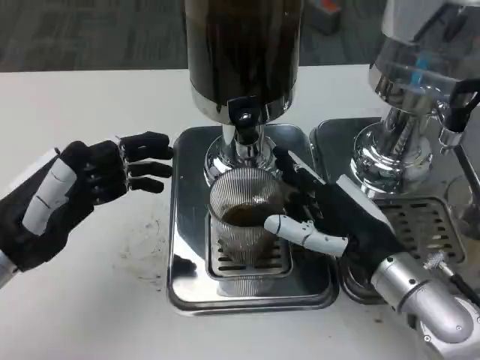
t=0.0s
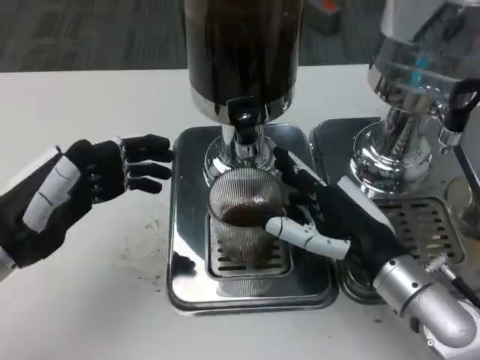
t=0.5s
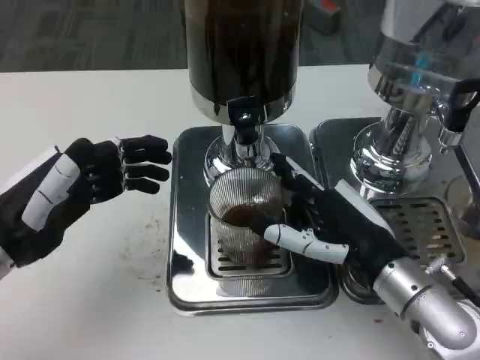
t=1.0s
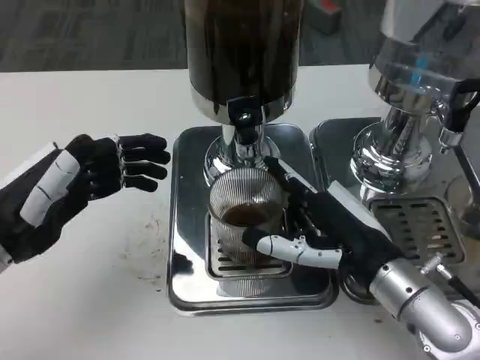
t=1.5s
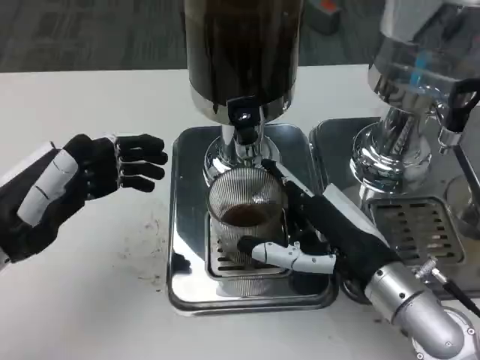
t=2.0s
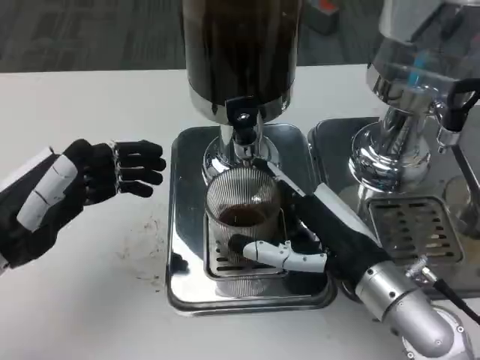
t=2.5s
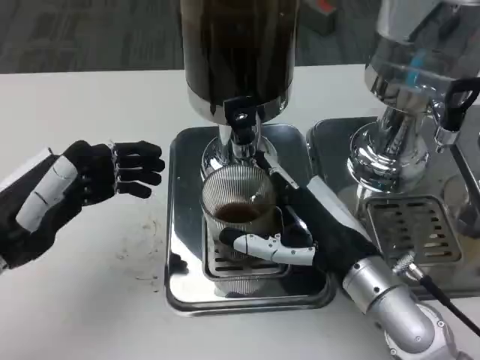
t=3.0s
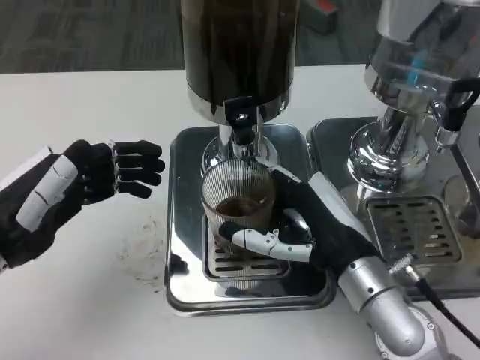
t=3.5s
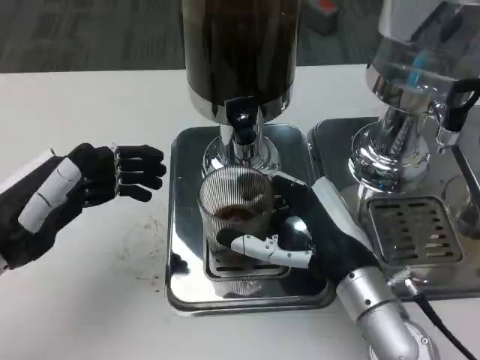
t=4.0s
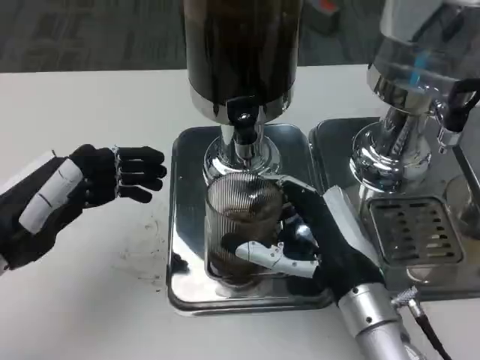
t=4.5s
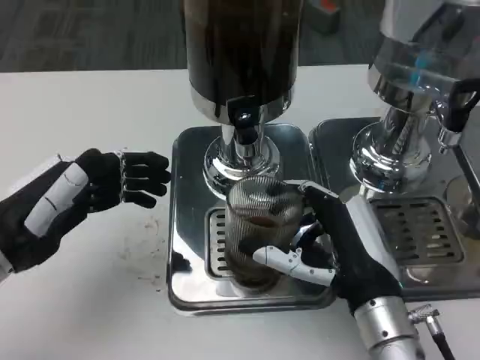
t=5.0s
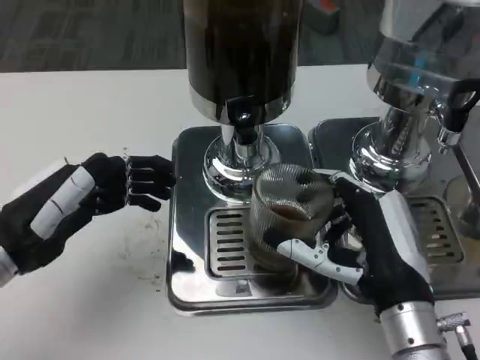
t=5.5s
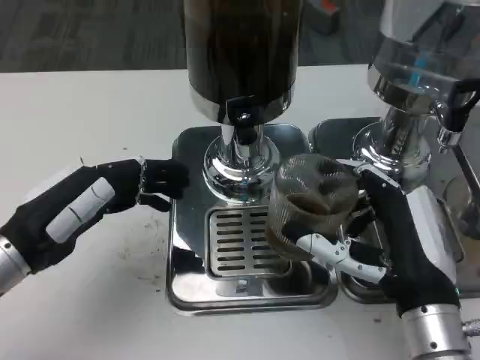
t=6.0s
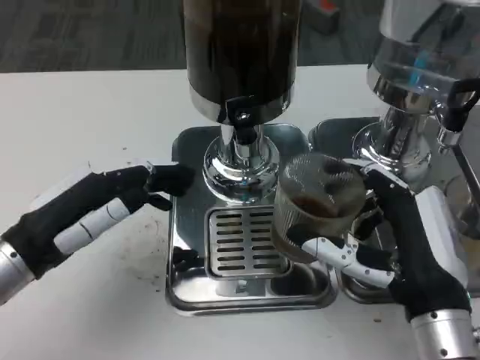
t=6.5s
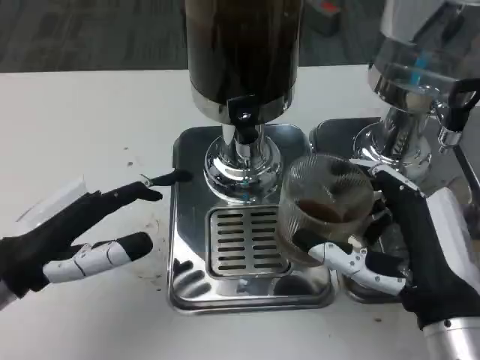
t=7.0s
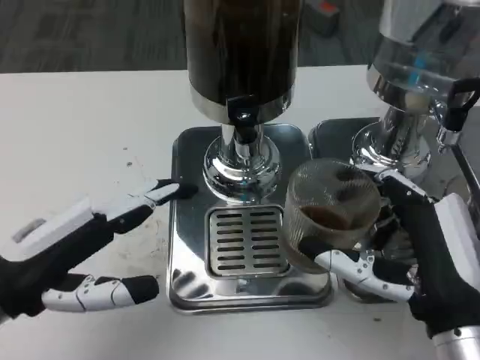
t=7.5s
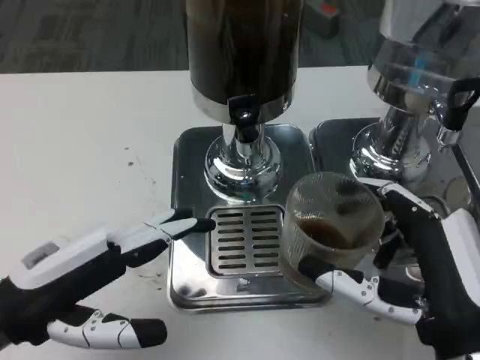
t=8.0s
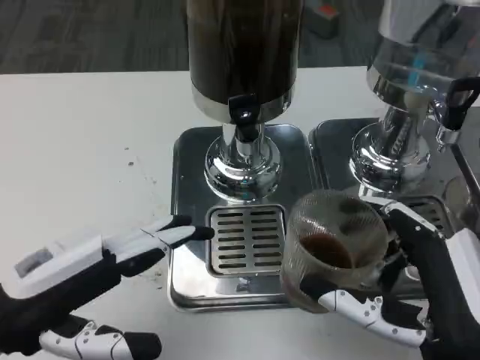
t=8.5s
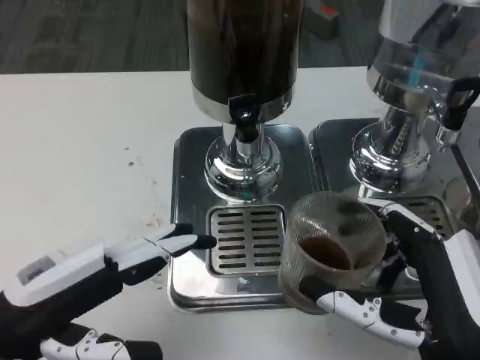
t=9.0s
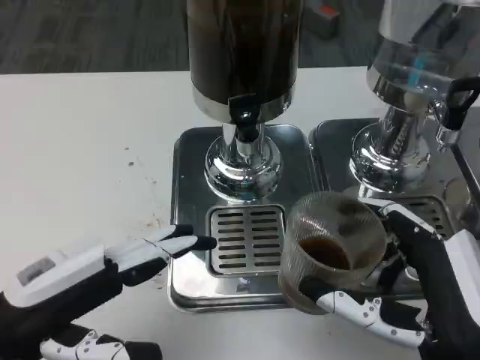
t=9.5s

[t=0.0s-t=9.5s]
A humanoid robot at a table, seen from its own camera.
Task of the whole recording: Grasp the cup under the faucet to collect the drink, then remove the cup.
t=0.0s to t=4.0s: The hands make only small movements.
t=5.5s to t=7.5s: The right hand moves some 5 cm.

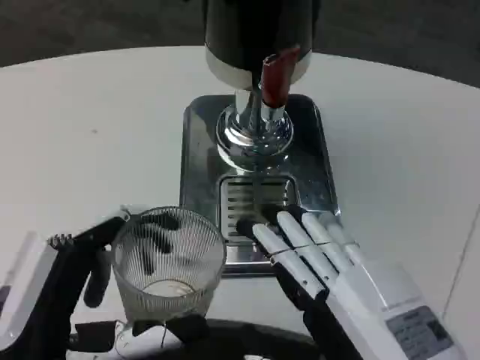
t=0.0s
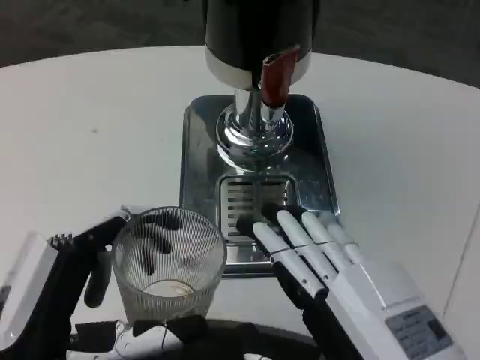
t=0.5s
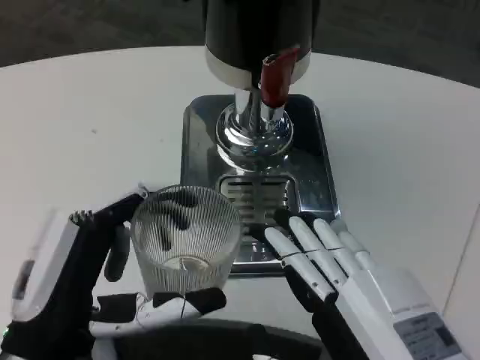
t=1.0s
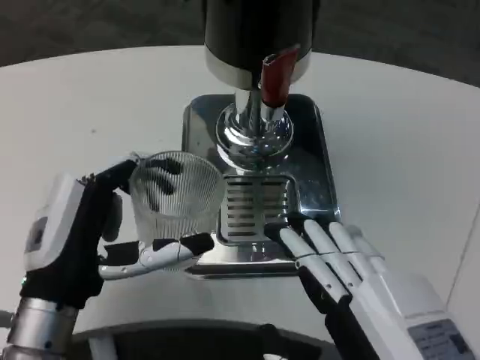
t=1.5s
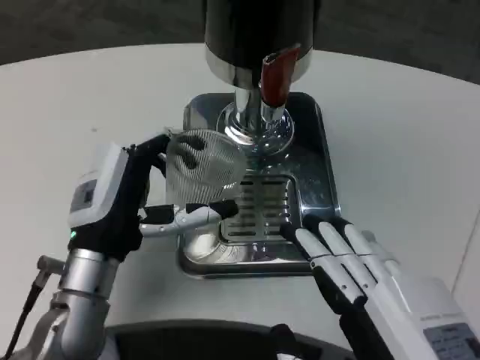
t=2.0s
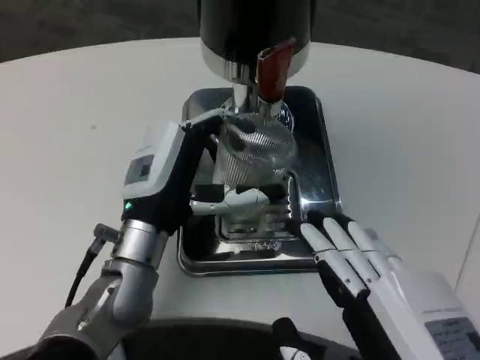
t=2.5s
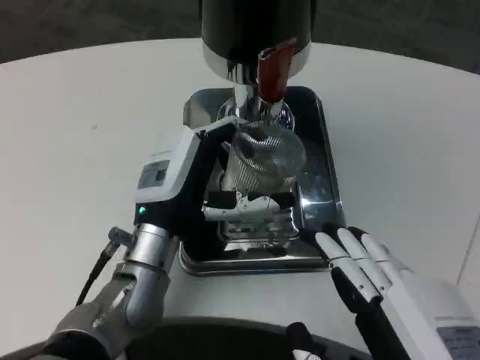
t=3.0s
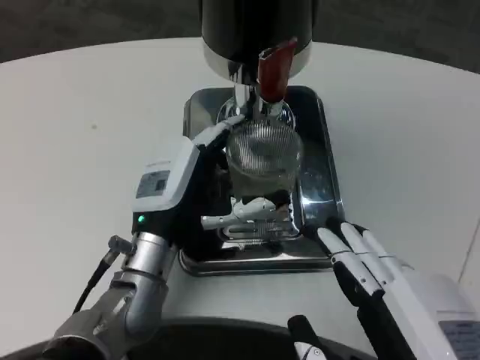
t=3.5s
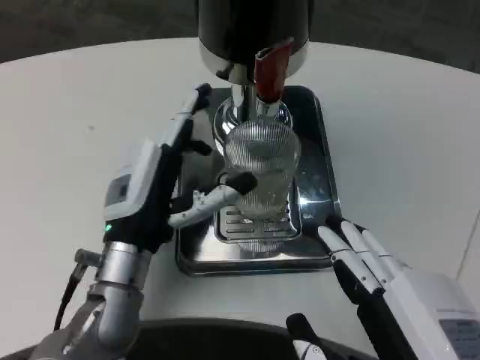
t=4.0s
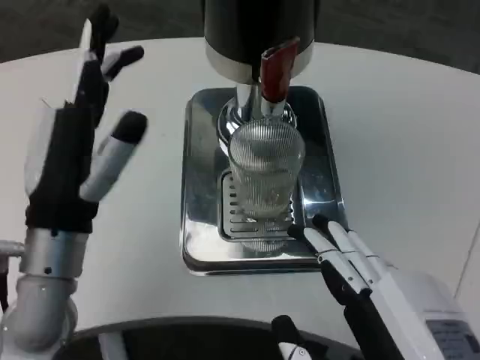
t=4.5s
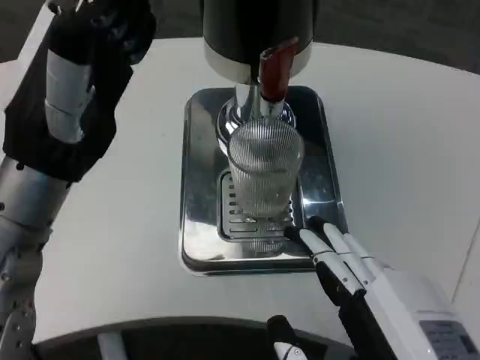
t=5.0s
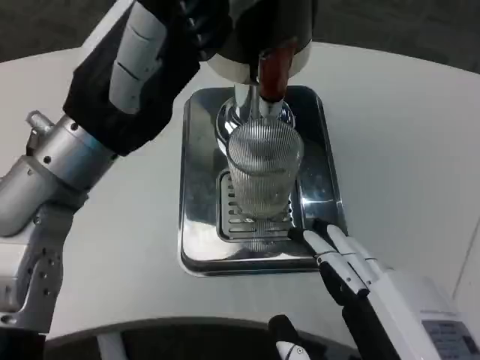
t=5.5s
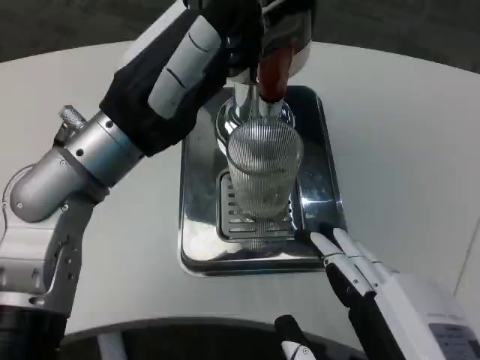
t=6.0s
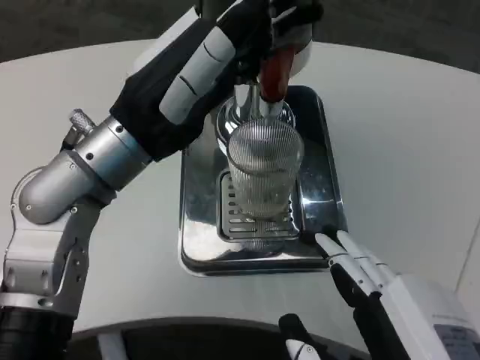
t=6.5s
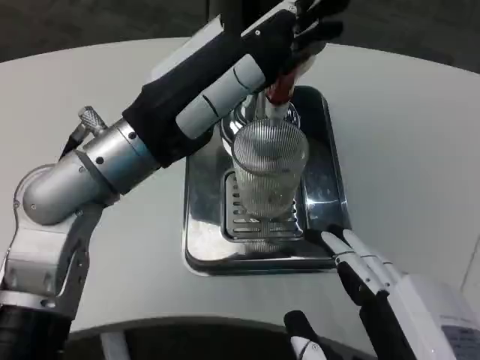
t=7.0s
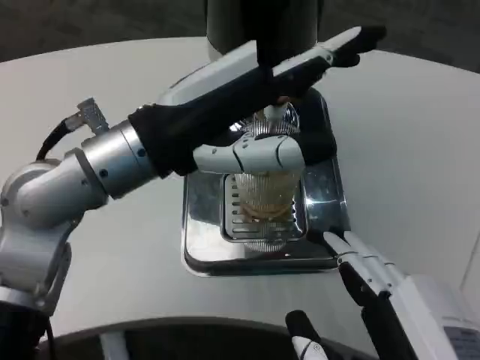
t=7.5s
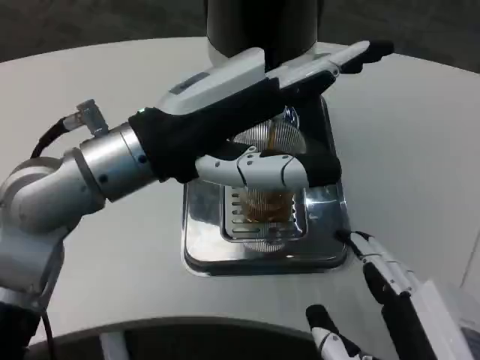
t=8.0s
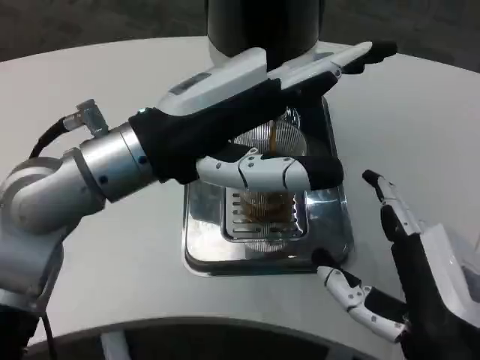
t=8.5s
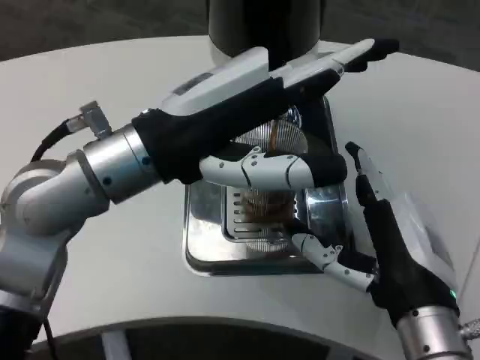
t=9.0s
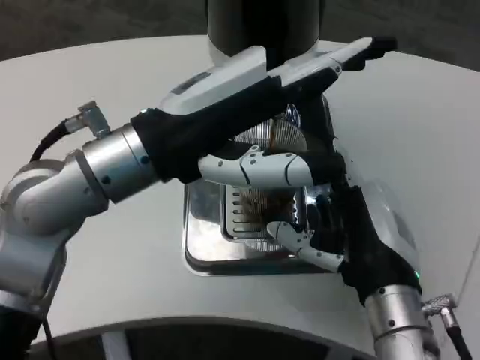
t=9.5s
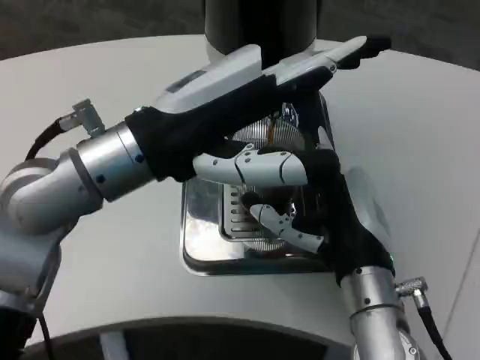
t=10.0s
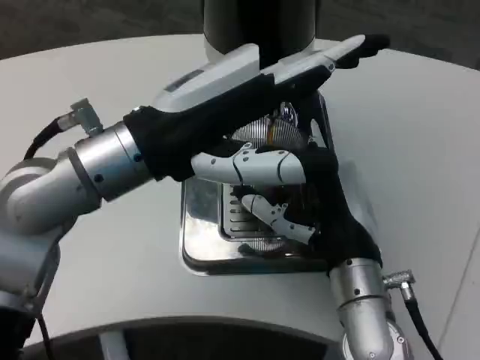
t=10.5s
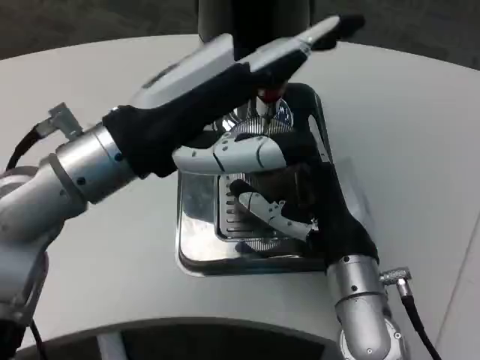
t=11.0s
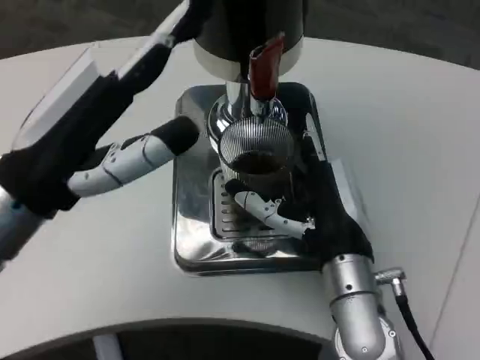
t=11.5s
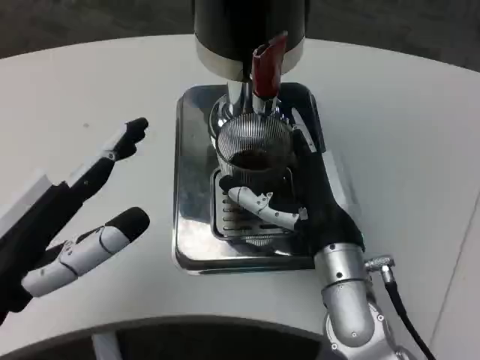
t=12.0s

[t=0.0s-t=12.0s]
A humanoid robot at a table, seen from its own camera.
Task of the whole recording: Grasp the cup under the faucet to collect the drink, then remove the cup.
t=0.0s to t=2.0s: The left hand goes some 15 cm forward.
t=4.0s to t=6.0s: The left hand heads upward, covering approximately 15 cm.
t=8.0s to t=10.0s: The right hand shifts roughly 15 cm forward.
t=10.0s to t=12.0s: The left hand moves backward, to the left and downward, roughly 15 cm.

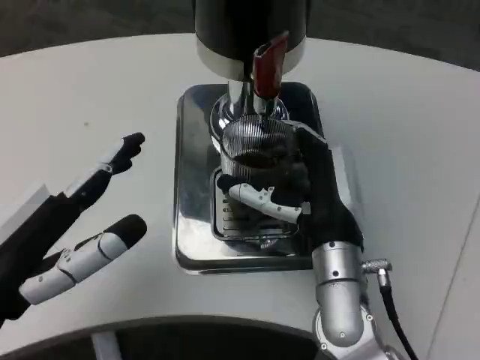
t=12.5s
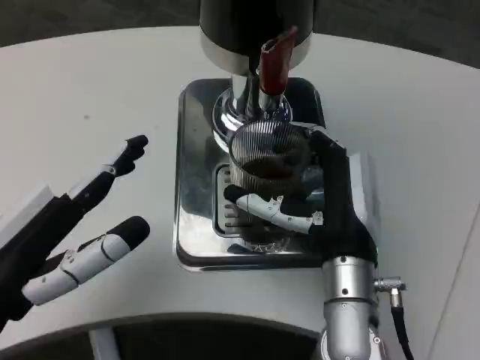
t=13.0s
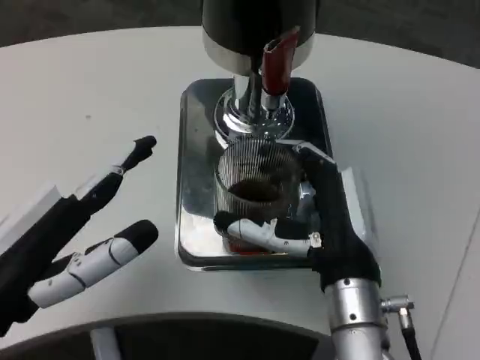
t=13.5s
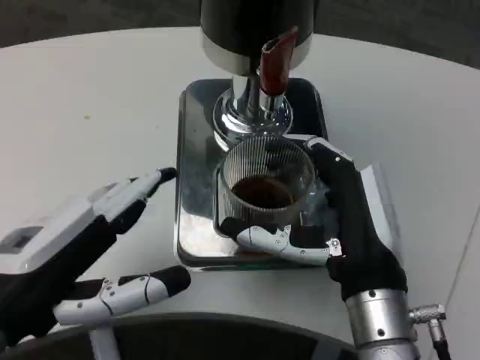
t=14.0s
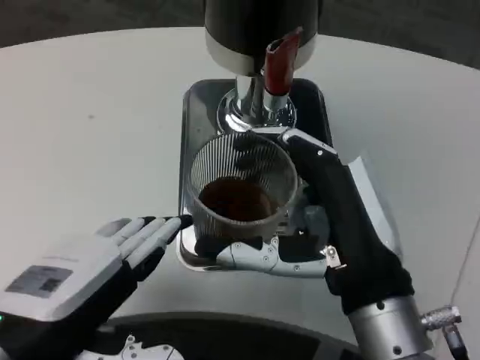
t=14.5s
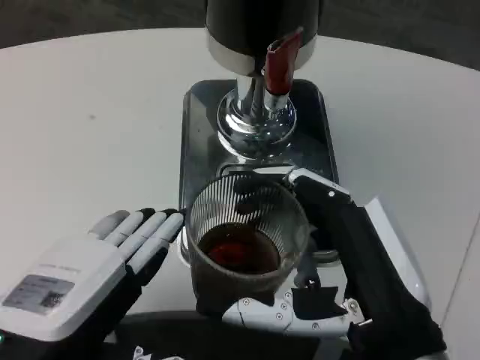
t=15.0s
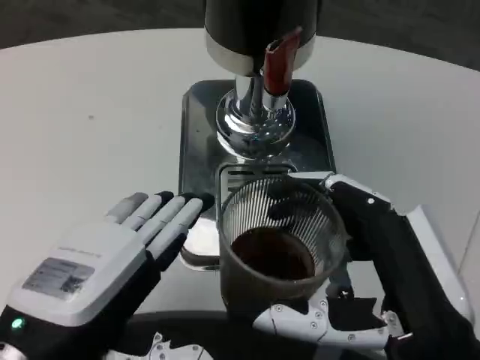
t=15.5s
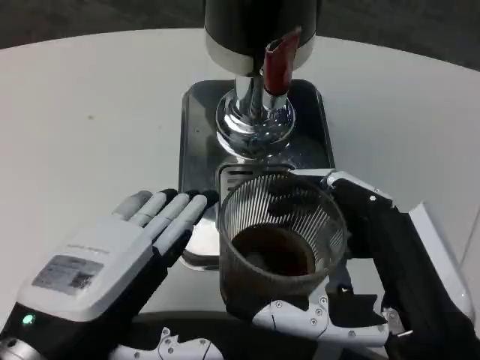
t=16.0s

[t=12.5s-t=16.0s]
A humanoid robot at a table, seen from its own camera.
Task of the whole recording: Grasp the cup under the faucet to collect the drink, then remove the cup.
t=12.5s to t=14.5s: The left hand moves roughly 5 cm; the right hand is displaced backward by about 10 cm.
t=14.5s to t=16.0s: The right hand shifts roughly 5 cm backward.

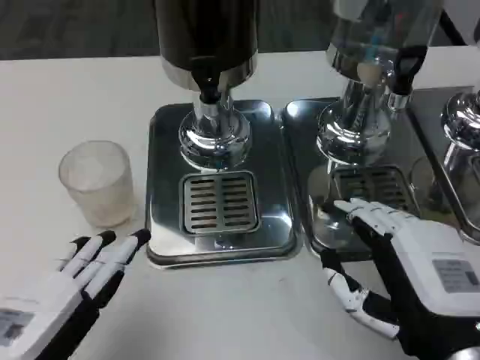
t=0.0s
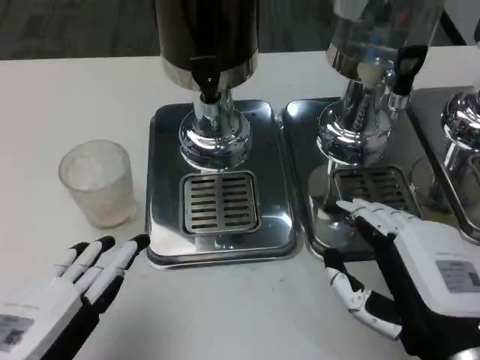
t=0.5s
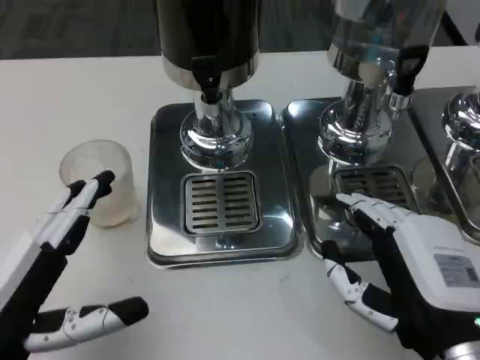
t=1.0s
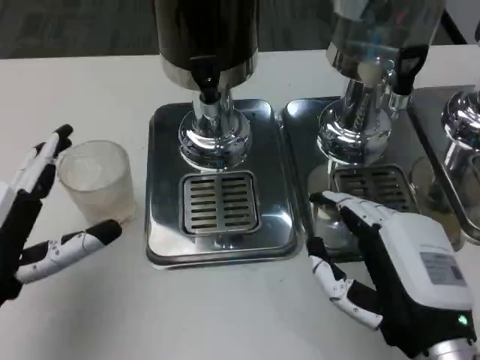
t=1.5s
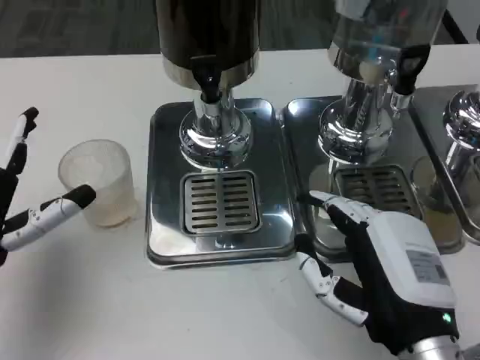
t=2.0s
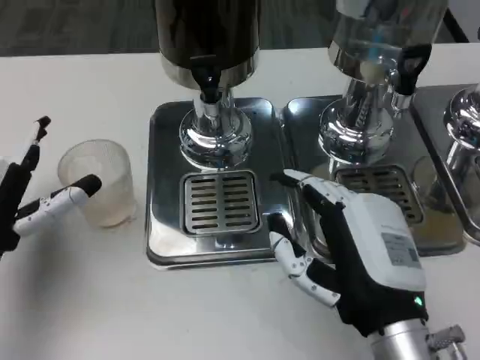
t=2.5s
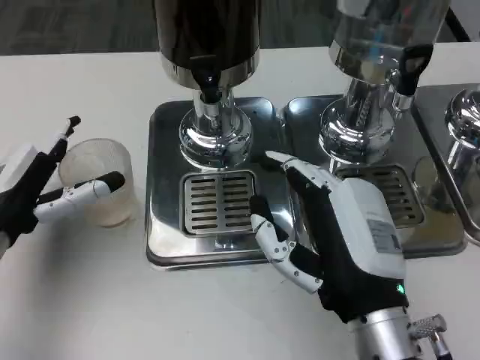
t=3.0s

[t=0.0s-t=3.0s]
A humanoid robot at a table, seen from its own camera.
Task of the whole recording: Grasp the cup under the faucet to collect the drink, then remove the cup.
t=0.0s to t=1.5s: The left hand moves forward, some 10 cm.
t=1.5s to t=3.0s: The right hand shifts roughly 5 cm to the left; the left hand is displaced forward by approximately 10 cm.
